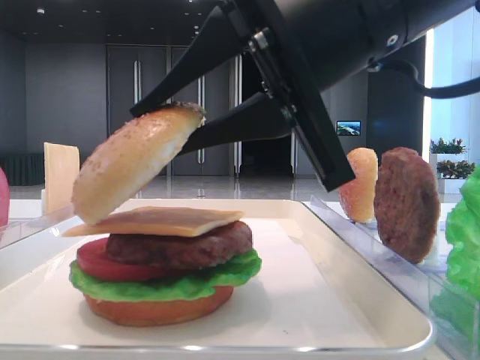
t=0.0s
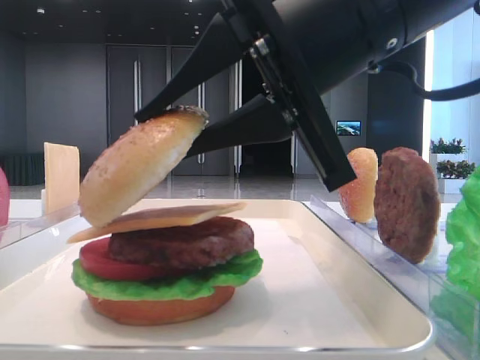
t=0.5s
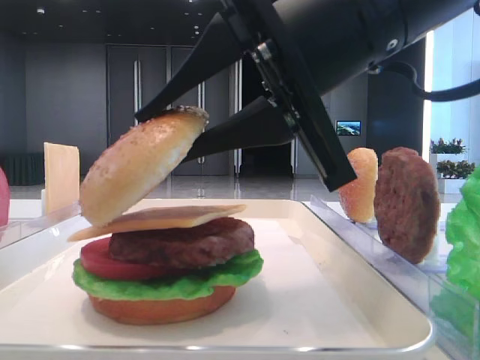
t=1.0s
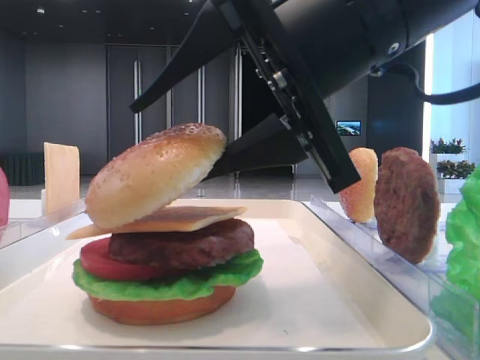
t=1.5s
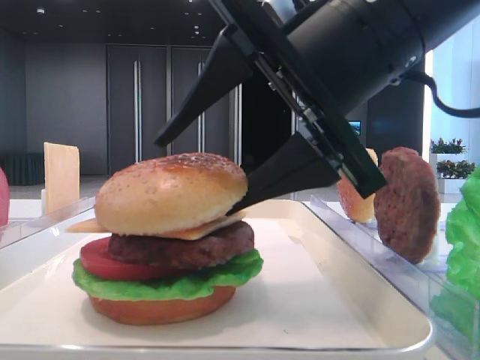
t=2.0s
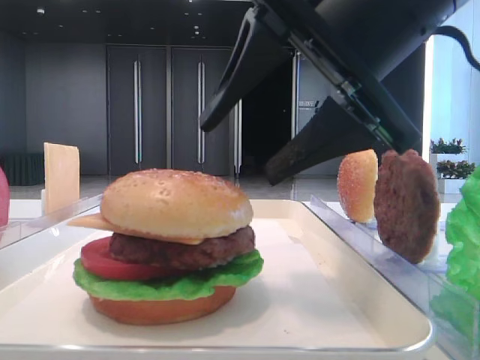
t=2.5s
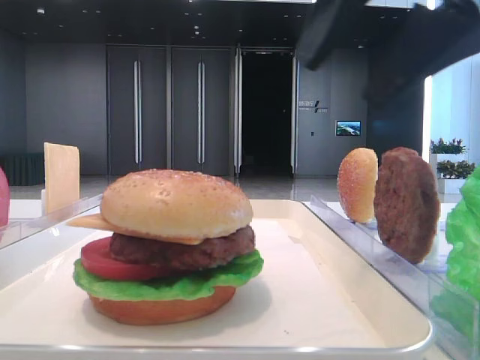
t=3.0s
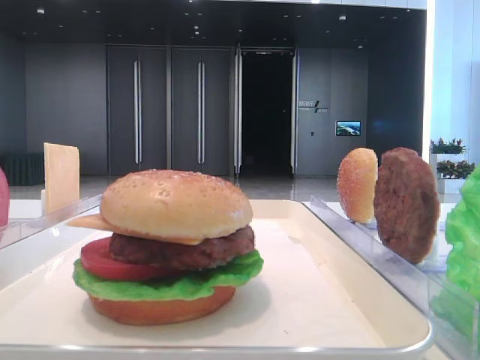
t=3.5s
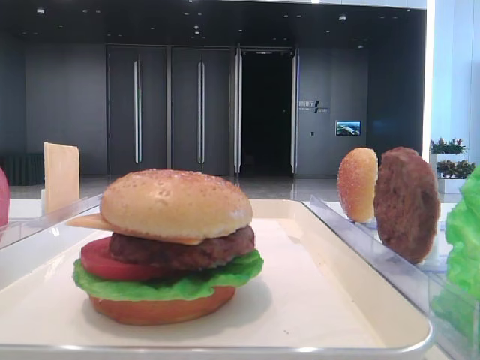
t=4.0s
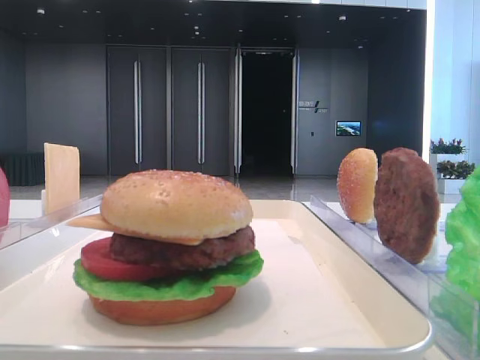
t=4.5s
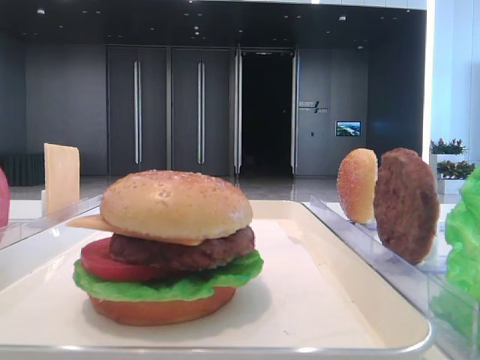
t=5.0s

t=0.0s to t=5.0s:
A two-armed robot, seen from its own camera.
Step, t=0.0s to t=2.0s: Place the top bread slice on the cheese with the right hand.
t=0.0s to t=2.5s: The right gripper opens up.
t=2.5s to t=5.0s: The right gripper goes roughly 30 cm backward and to the right.

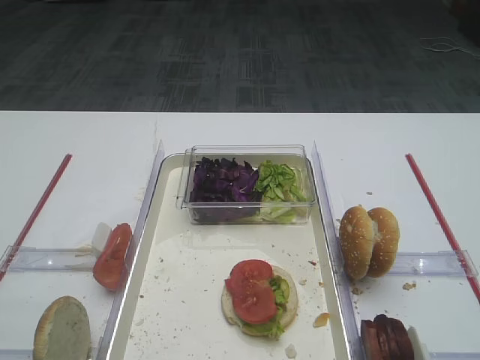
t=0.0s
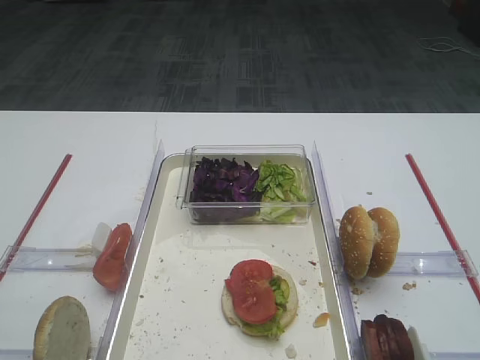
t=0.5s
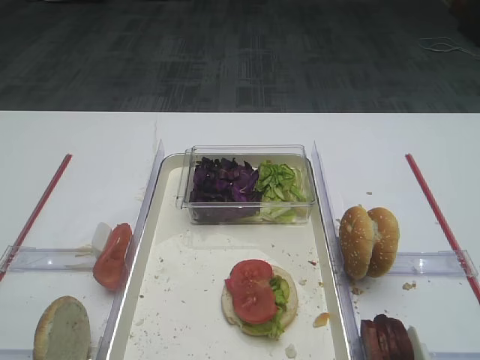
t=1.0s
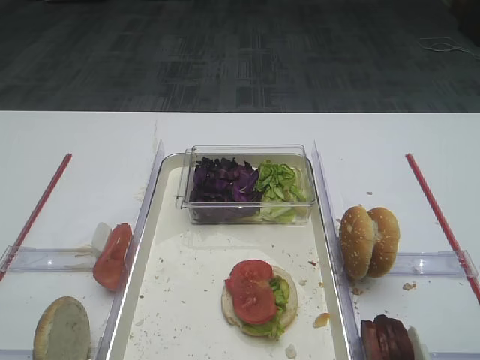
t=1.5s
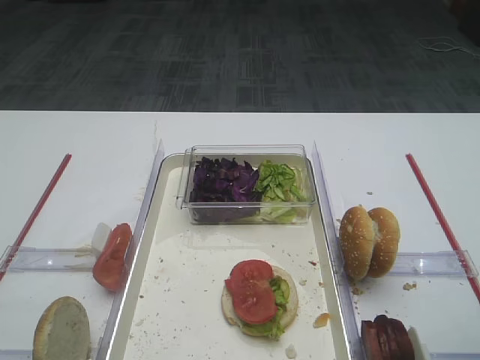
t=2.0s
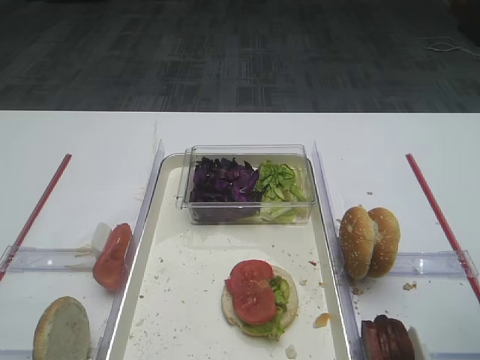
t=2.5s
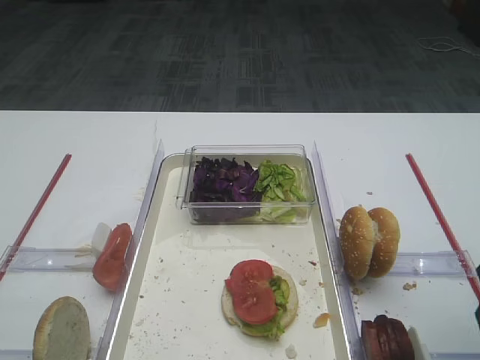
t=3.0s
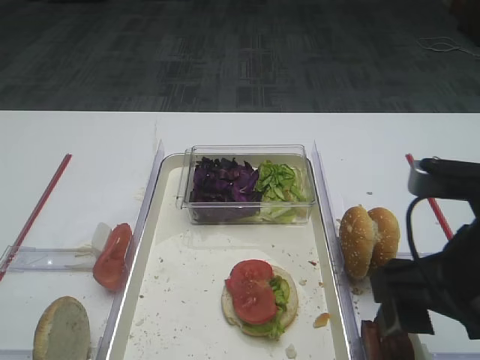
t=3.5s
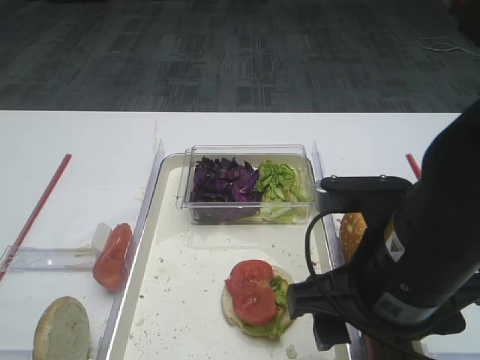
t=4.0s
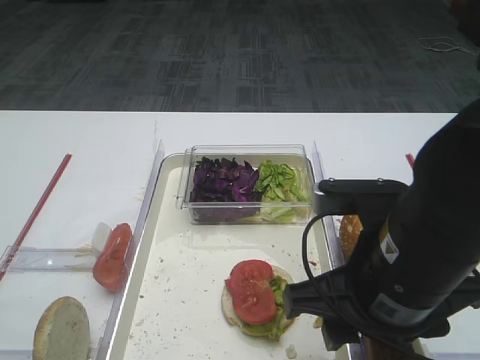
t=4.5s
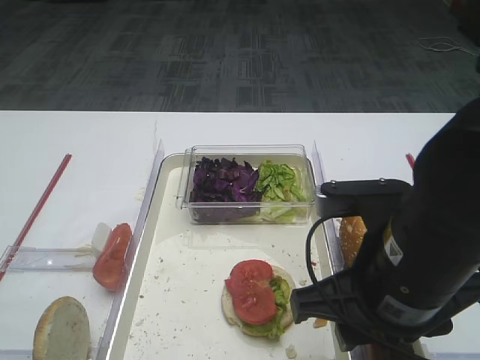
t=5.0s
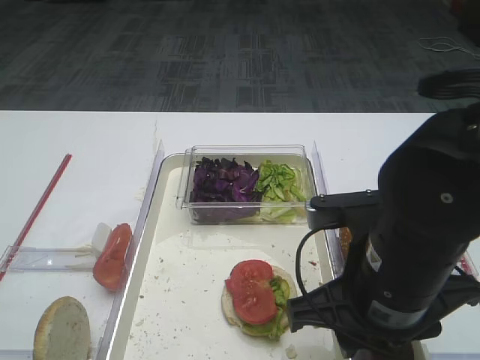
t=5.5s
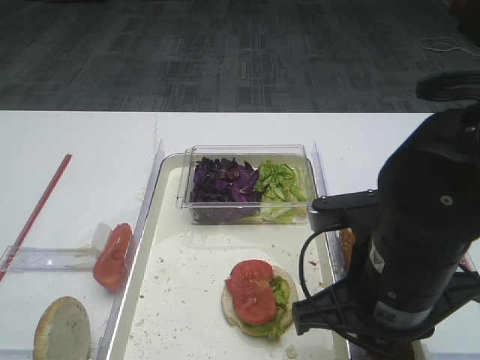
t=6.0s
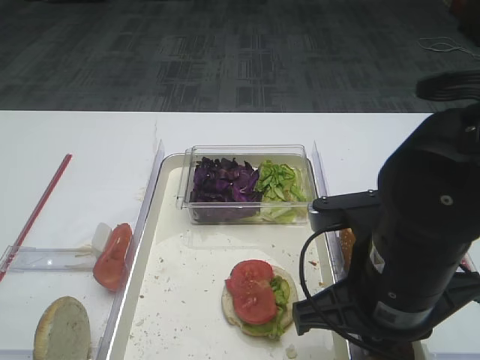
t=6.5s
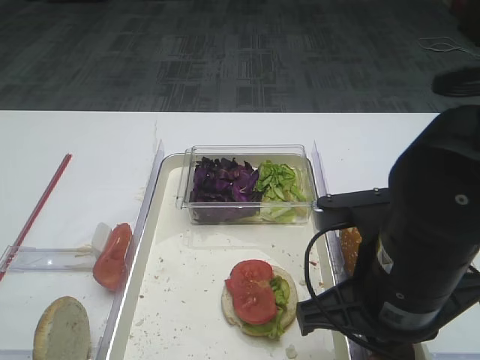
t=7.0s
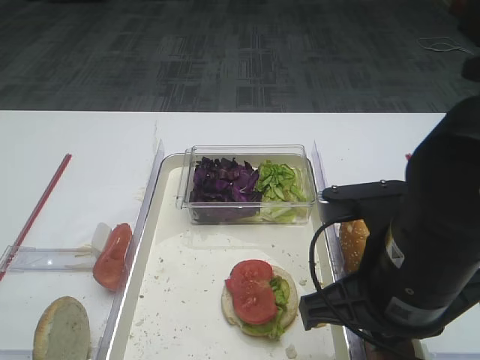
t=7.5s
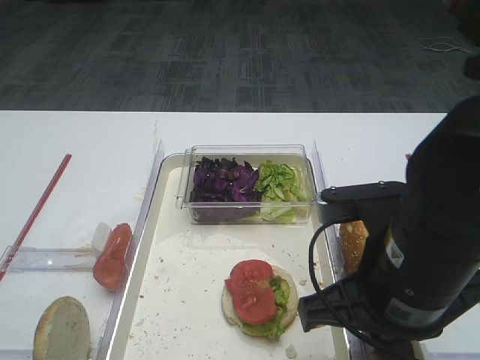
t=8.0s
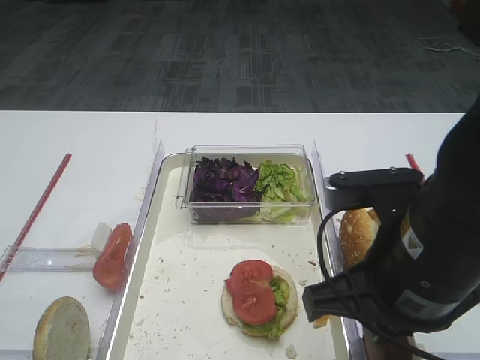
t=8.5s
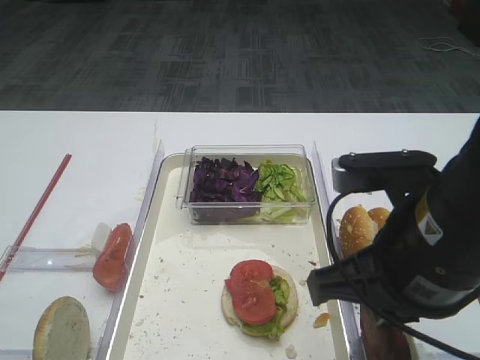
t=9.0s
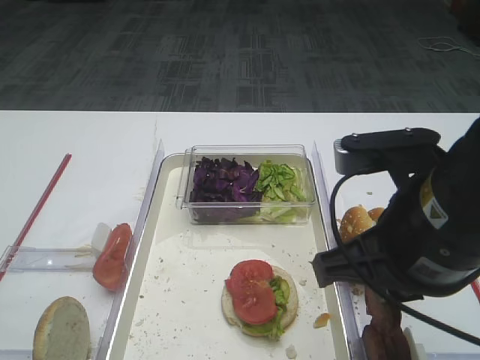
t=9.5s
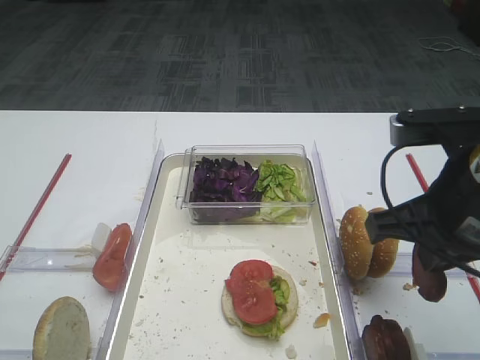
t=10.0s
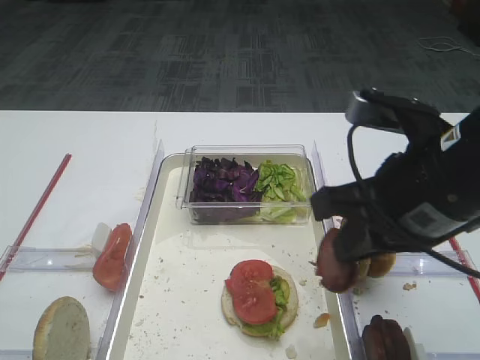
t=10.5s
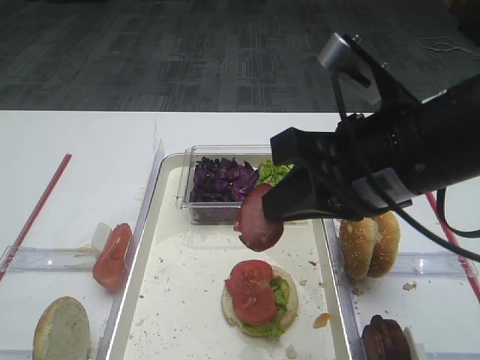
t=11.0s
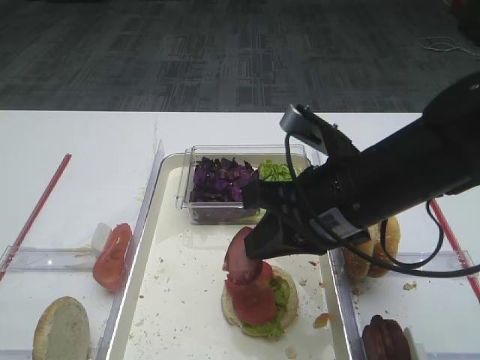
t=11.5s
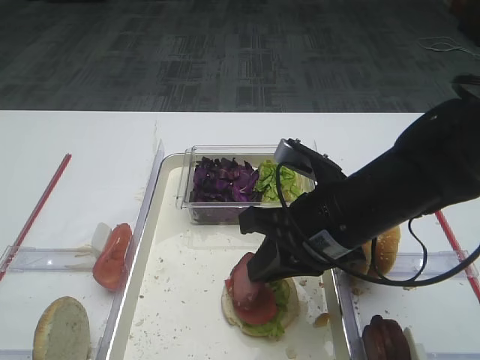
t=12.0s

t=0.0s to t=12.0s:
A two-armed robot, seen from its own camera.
Step, t=0.0s to t=9.0s: Pick up the cutlet with the right gripper.
t=2.0s to t=4.0s: The right gripper shifts approximately 15 cm to the left.
t=4.0s to t=6.0s: The right gripper closes.
t=6.0s to t=8.0s: The grippers make only small movements.
t=8.0s to t=10.0s: The right gripper travels to the right by roughly 5 cm.
t=10.0s to t=12.0s: The right gripper is displaced to the left and downward by some 10 cm.

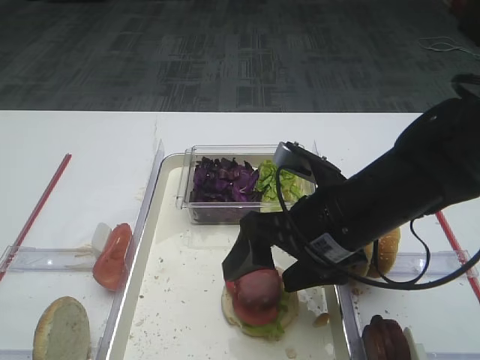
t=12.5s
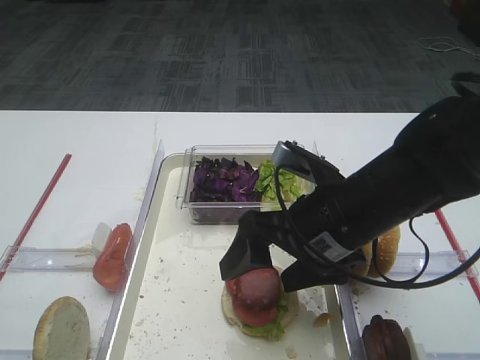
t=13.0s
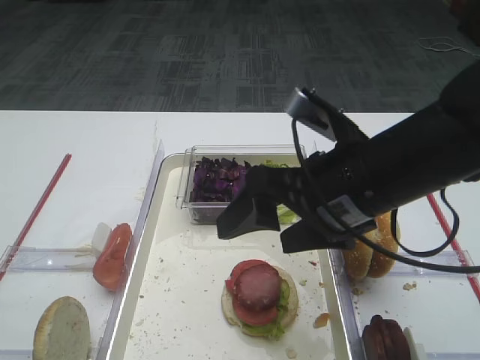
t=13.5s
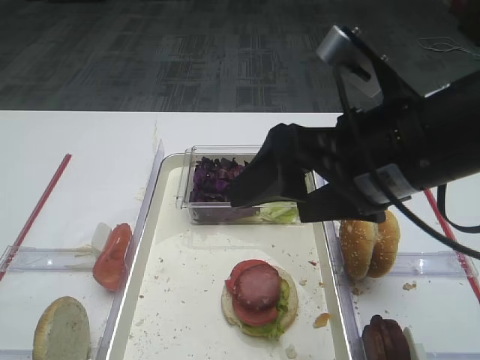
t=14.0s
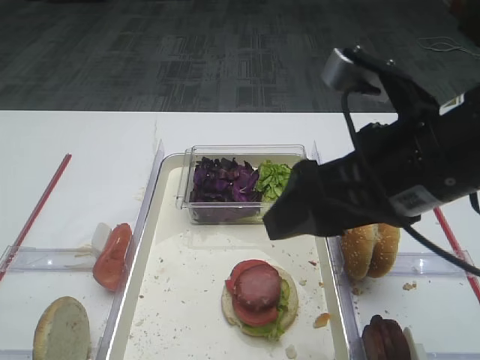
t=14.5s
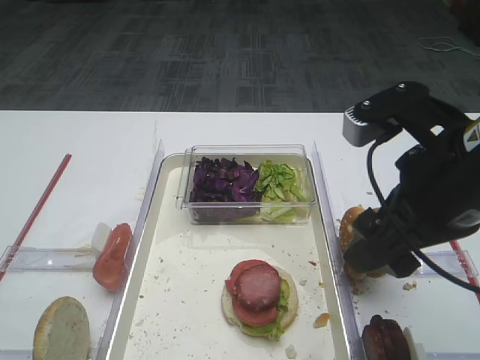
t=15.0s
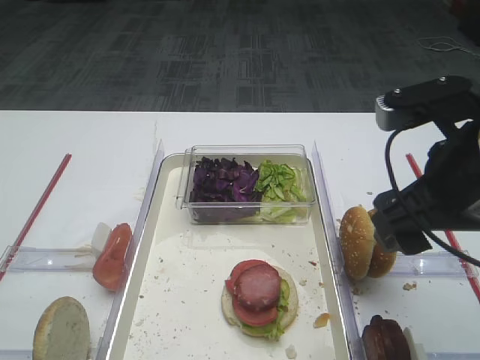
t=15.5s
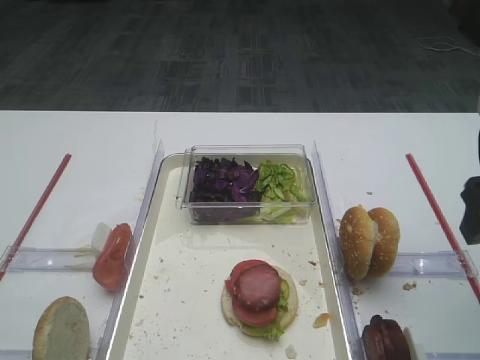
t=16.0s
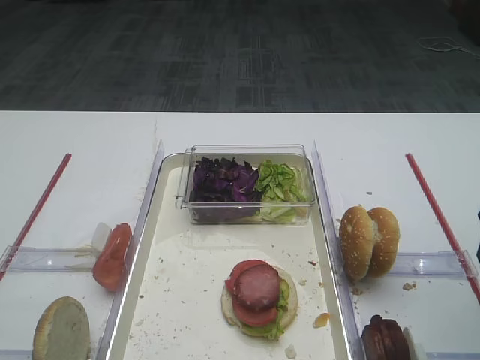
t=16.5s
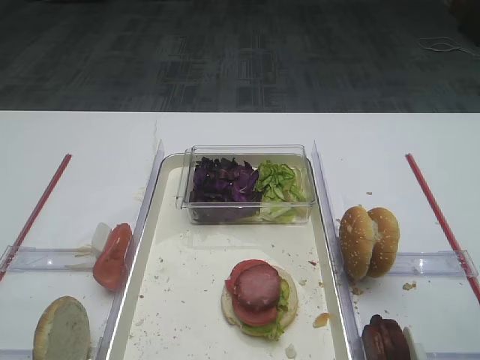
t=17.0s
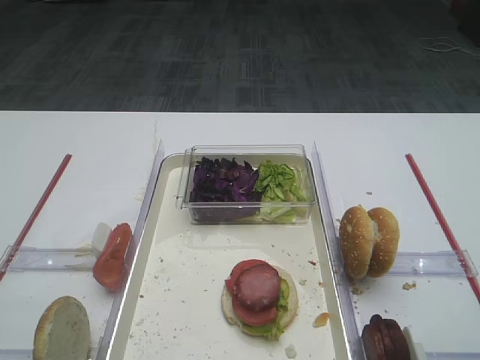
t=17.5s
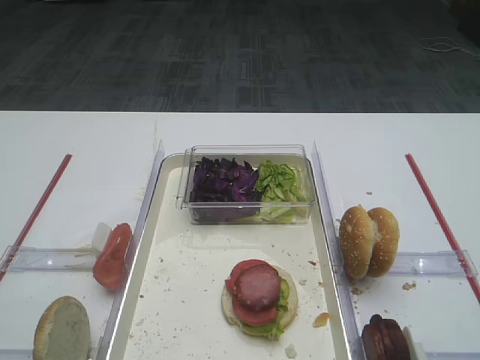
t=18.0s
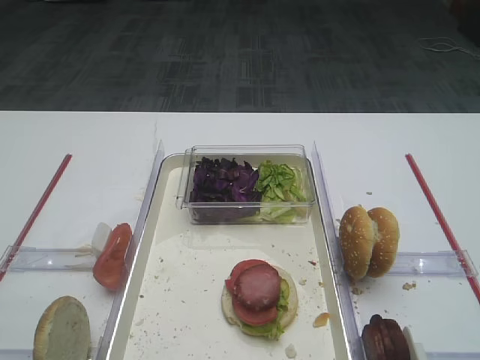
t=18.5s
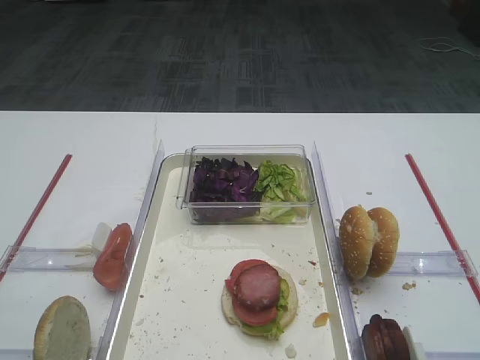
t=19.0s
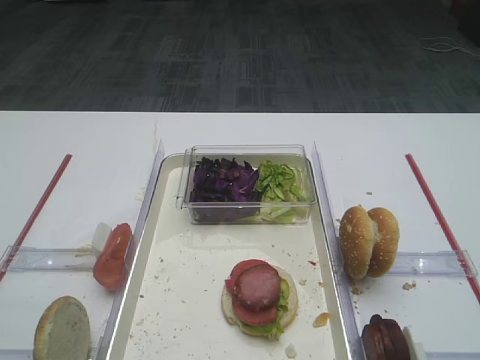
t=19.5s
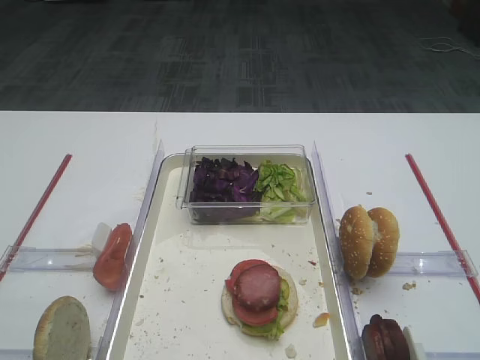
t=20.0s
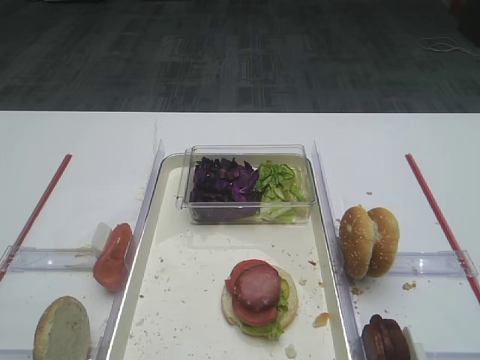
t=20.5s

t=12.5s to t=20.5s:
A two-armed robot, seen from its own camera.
t=12.5s to t=14.5s: The right gripper travels upward by roughly 10 cm.
t=14.5s to t=16.5s: The right gripper travels to the right by some 15 cm.
t=16.5s to t=18.5s: The right gripper shifts roughly 20 cm backward.
t=18.5s to t=20.5s: Both grippers stay put.

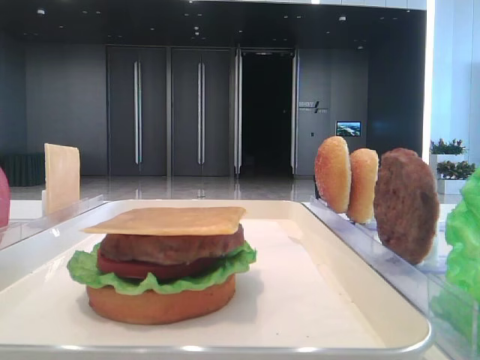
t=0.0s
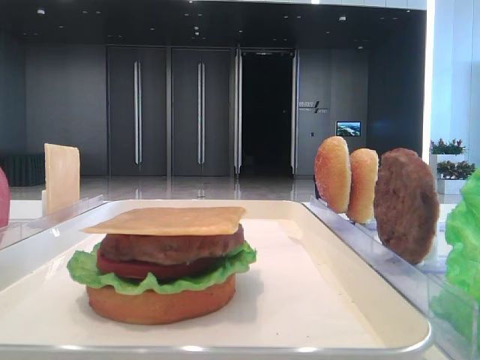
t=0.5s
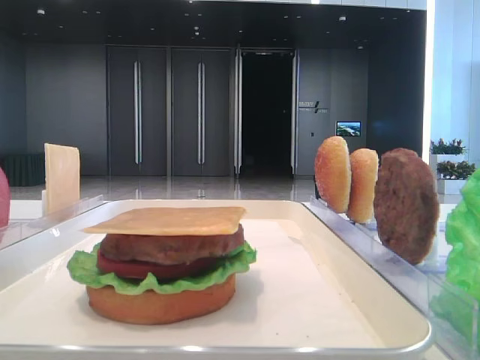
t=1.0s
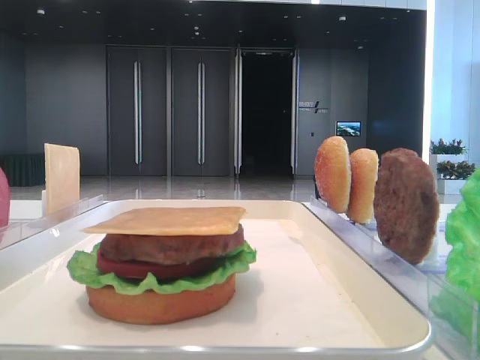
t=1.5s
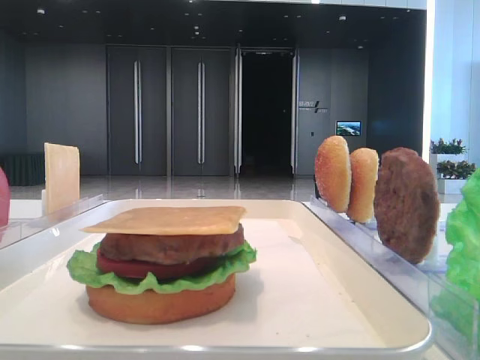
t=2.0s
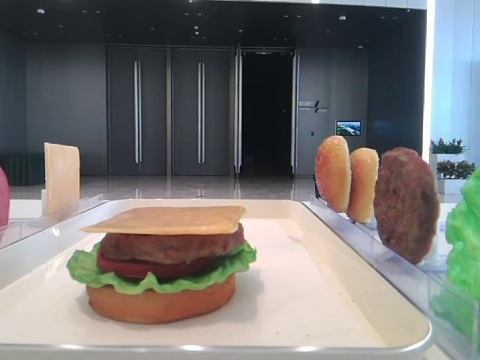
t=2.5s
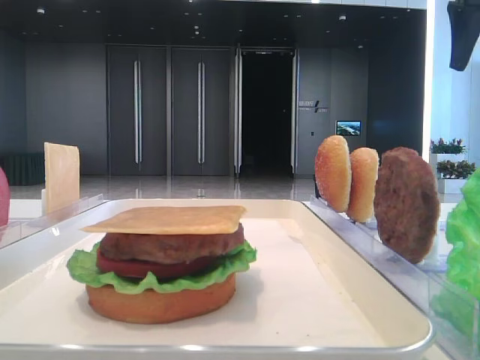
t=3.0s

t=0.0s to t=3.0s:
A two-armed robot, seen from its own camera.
t=1.5s to t=3.0s: The right gripper is displaced forward by some 35 cm.
